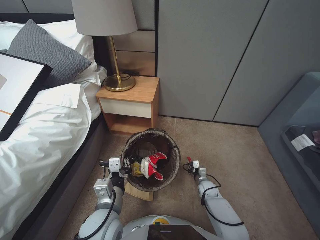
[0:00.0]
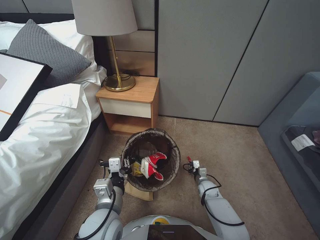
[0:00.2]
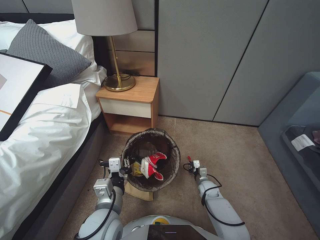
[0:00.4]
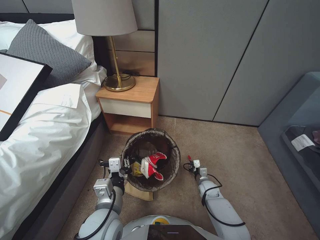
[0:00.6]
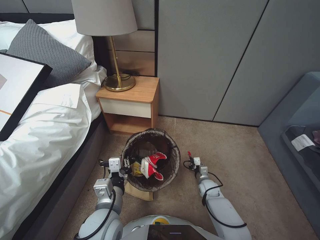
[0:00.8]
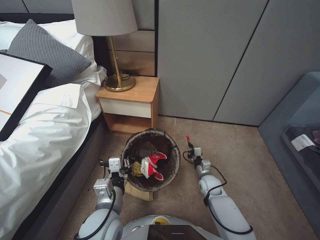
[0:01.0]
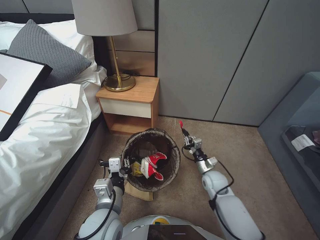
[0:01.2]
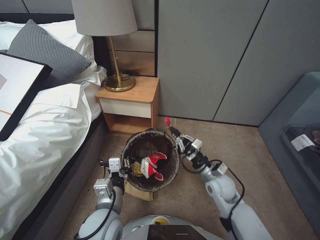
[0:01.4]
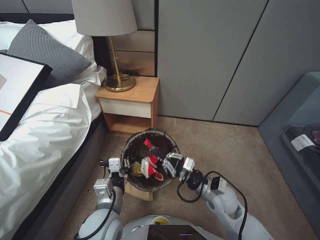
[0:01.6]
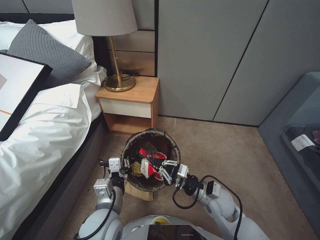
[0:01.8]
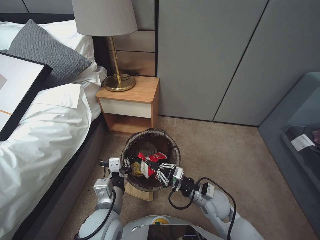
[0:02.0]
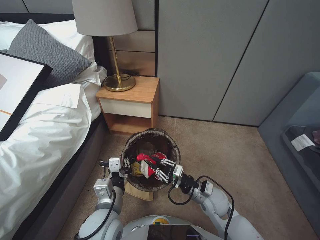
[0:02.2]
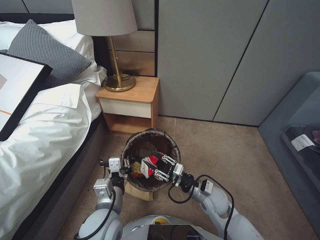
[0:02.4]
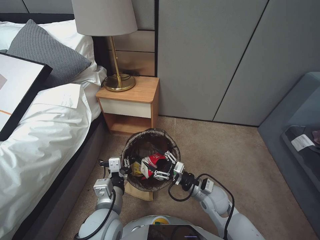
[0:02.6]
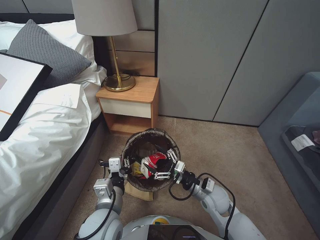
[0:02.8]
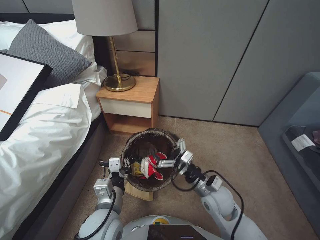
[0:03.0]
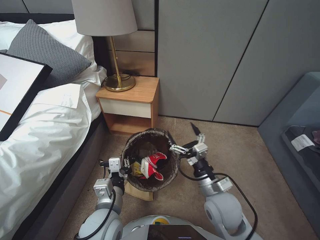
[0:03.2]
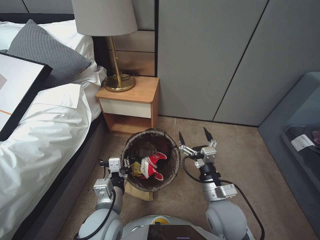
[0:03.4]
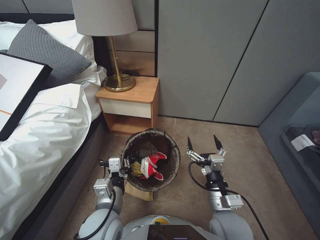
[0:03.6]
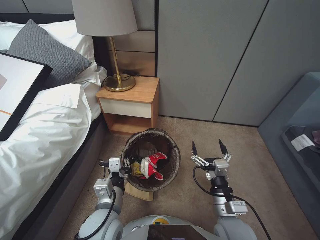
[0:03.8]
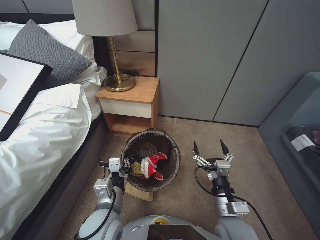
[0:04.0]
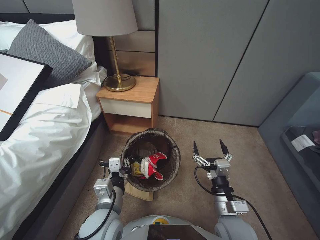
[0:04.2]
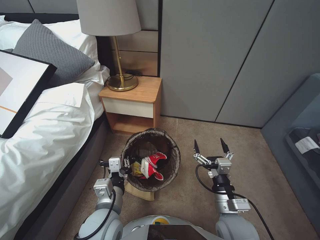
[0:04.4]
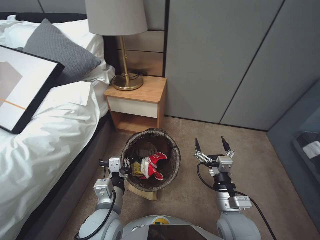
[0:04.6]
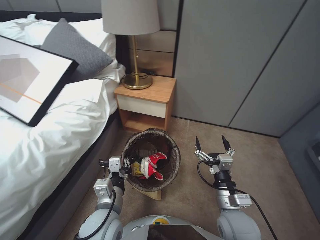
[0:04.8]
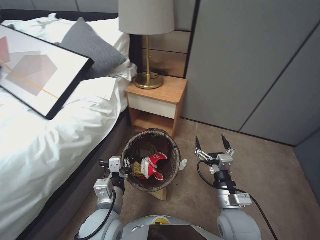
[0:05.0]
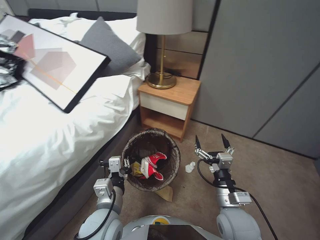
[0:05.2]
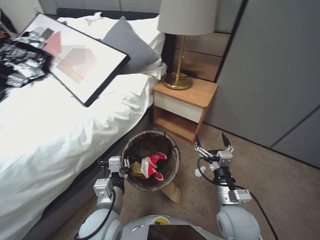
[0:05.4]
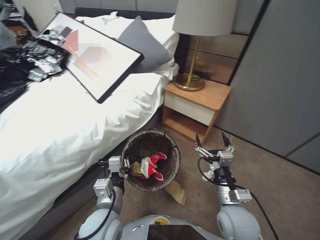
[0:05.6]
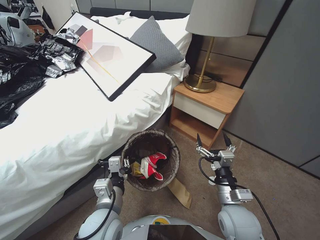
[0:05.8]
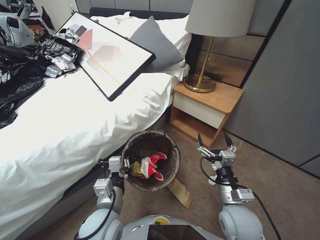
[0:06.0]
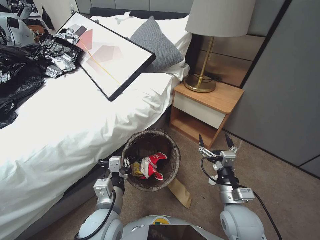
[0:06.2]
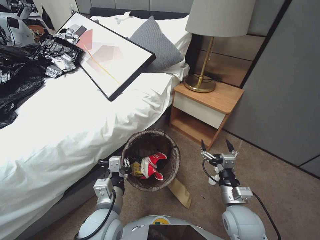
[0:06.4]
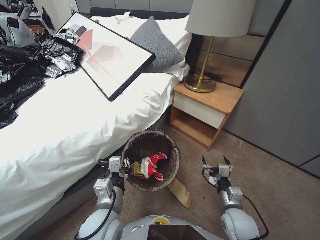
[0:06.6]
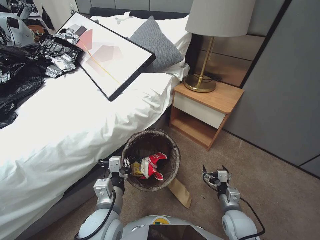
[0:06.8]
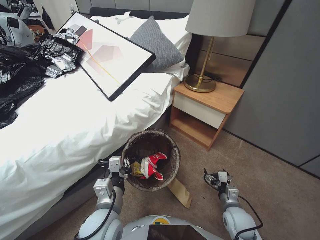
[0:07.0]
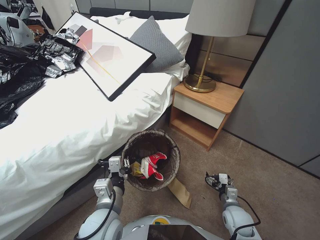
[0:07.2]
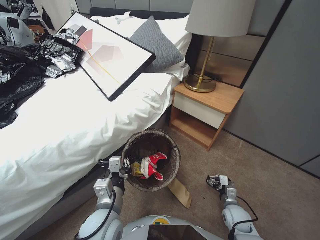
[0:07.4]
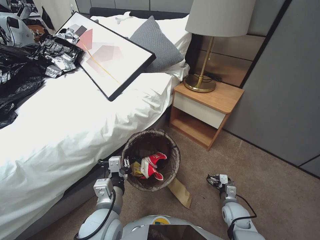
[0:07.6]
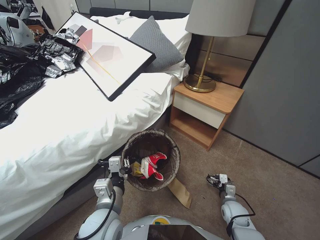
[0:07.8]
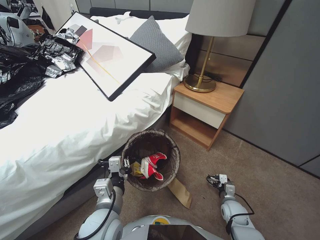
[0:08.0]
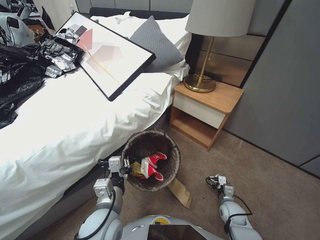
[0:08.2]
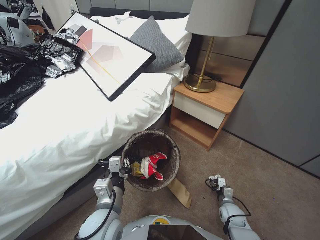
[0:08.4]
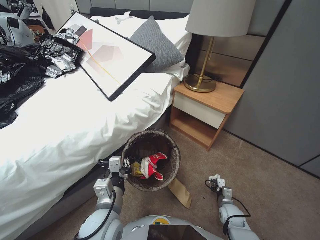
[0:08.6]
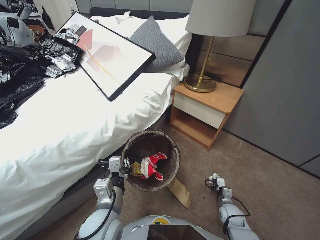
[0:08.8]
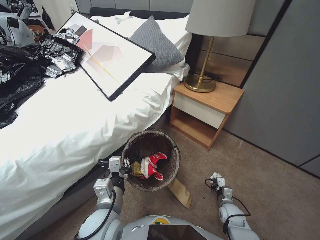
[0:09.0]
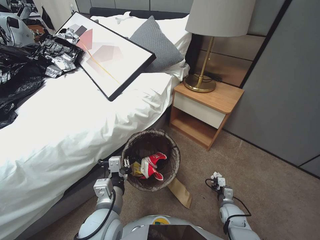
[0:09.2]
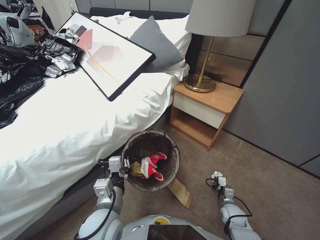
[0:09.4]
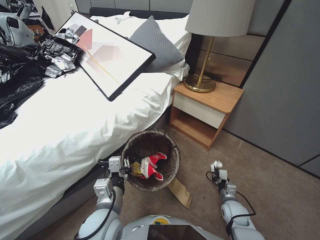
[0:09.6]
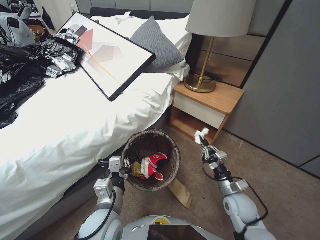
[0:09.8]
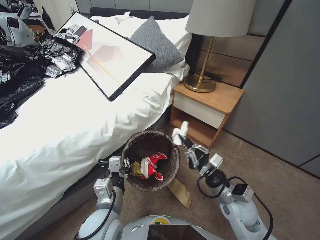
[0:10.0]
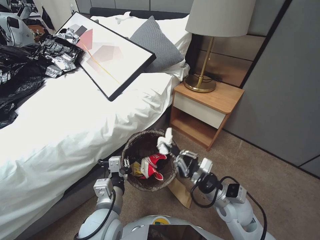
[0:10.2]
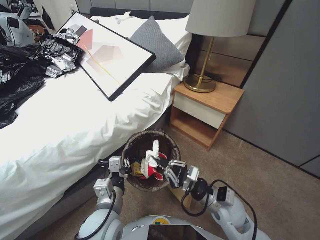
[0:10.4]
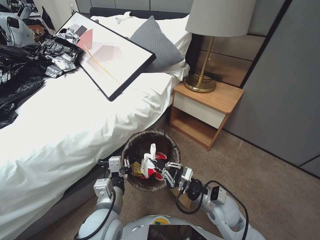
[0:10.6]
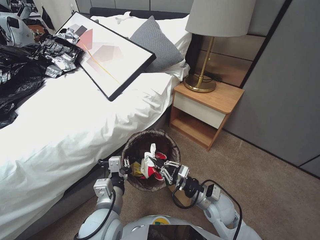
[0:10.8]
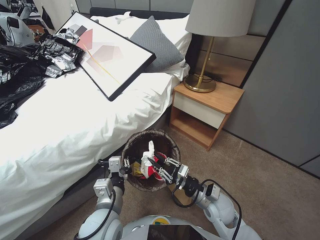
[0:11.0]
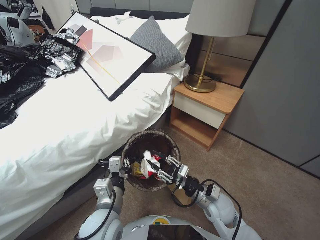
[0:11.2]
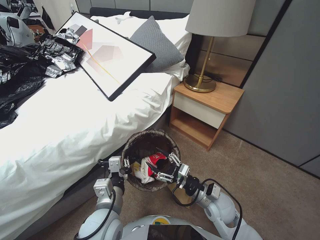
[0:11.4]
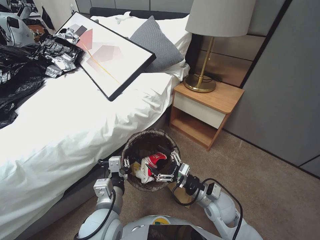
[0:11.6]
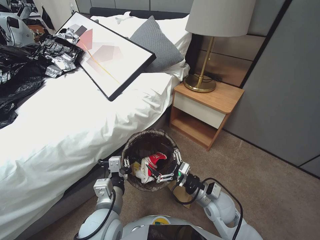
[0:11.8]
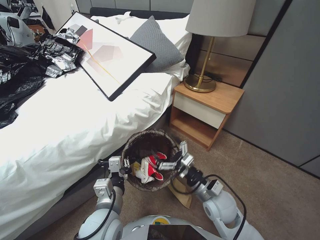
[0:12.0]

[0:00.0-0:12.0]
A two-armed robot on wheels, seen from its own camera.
Task of the whole recording: Pick up the trash bin, then pick up the garbage from the floor and place it into the trash bin.
0:00.0 to 0:01.6: The right gripper moves upward, about 25 cm.
0:01.6 to 0:03.0: The right gripper goes some 5 cm downward, and opens.
0:03.0 to 0:04.4: The right gripper shifts about 10 cm backward and upward.
0:06.0 to 0:07.6: The right gripper goes about 20 cm downward and to the right.
0:07.6 to 0:09.0: The right gripper is displaced downward by roughly 5 cm, and closes.
0:09.0 to 0:10.4: The right gripper shifts roughly 25 cm upward and to the left.
0:10.4 to 0:12.0: The right gripper opens its fingers.

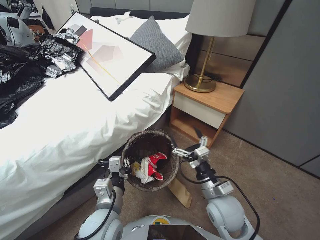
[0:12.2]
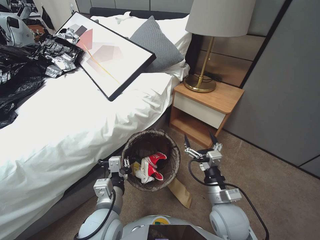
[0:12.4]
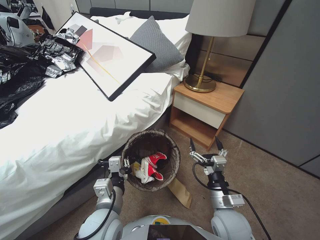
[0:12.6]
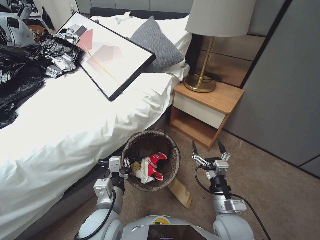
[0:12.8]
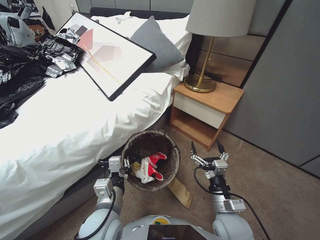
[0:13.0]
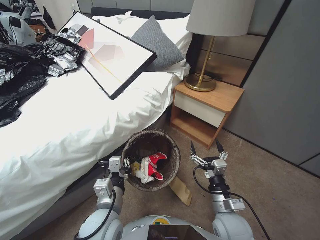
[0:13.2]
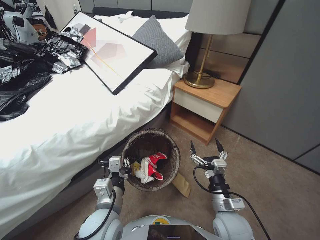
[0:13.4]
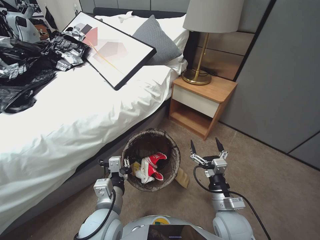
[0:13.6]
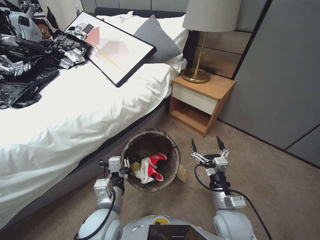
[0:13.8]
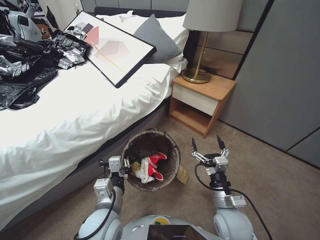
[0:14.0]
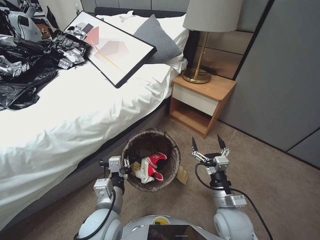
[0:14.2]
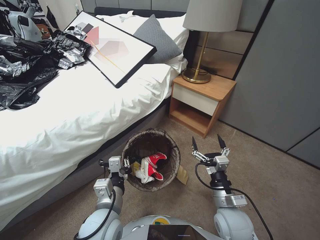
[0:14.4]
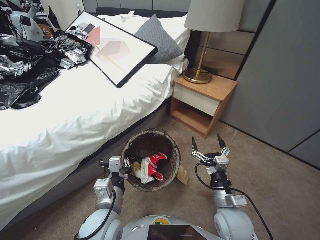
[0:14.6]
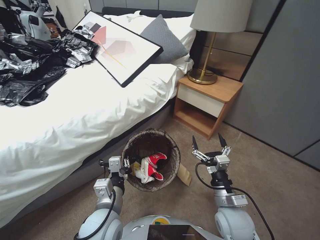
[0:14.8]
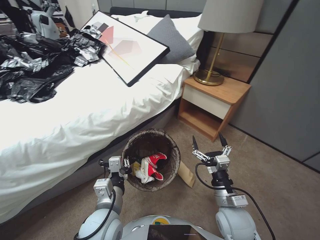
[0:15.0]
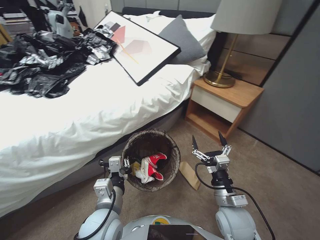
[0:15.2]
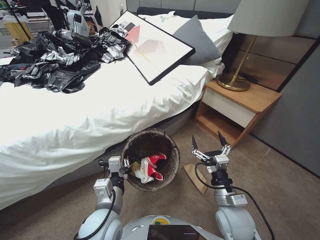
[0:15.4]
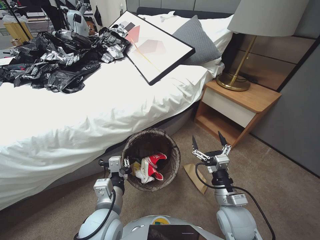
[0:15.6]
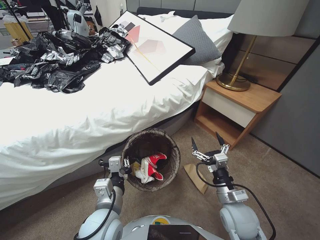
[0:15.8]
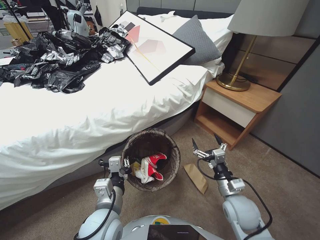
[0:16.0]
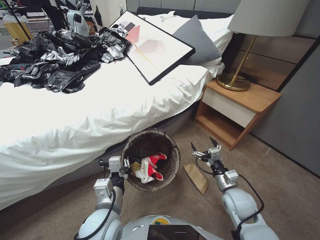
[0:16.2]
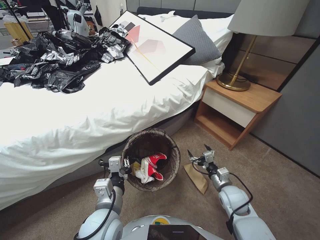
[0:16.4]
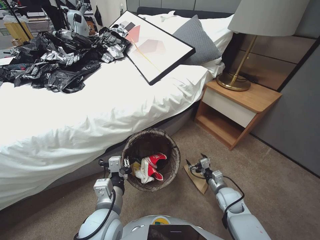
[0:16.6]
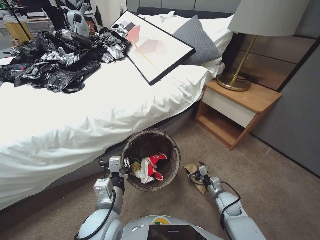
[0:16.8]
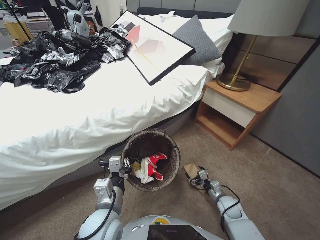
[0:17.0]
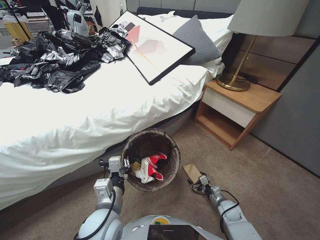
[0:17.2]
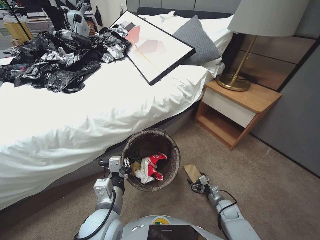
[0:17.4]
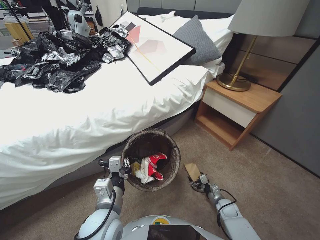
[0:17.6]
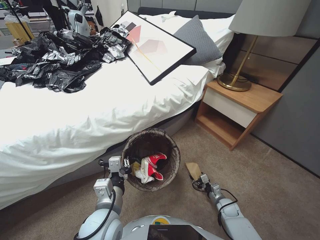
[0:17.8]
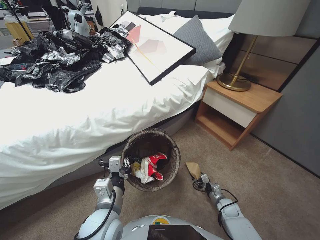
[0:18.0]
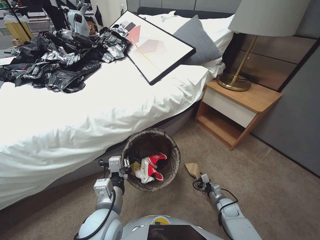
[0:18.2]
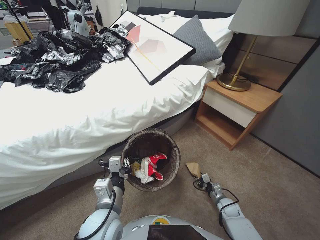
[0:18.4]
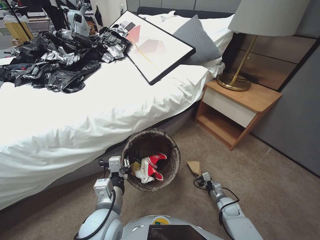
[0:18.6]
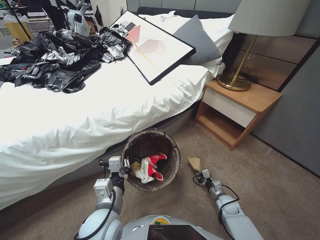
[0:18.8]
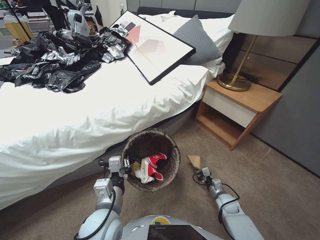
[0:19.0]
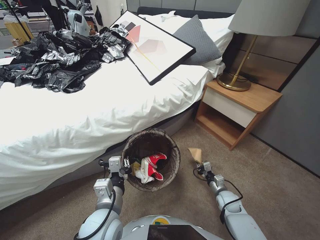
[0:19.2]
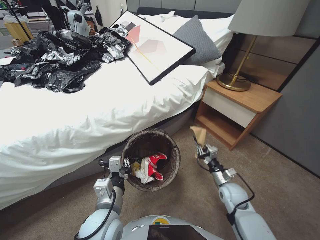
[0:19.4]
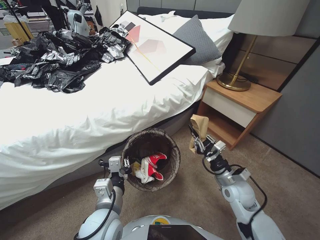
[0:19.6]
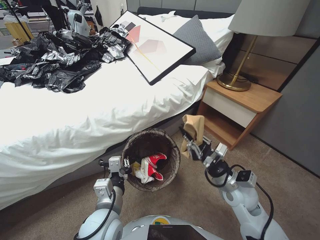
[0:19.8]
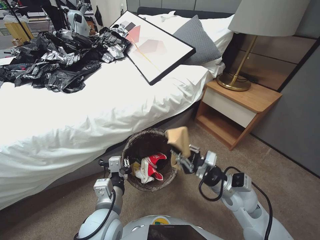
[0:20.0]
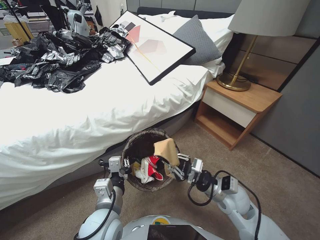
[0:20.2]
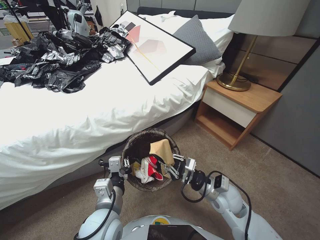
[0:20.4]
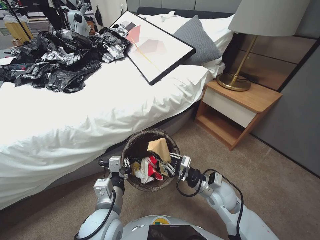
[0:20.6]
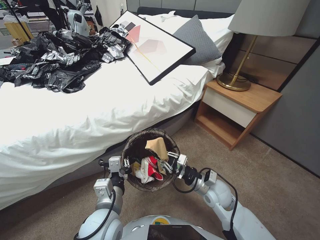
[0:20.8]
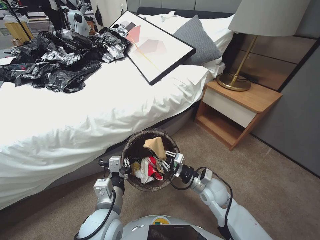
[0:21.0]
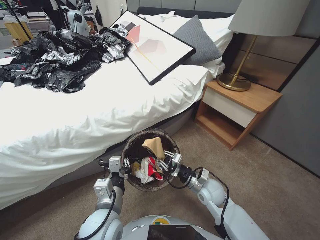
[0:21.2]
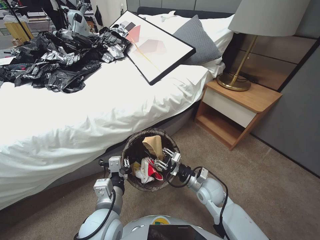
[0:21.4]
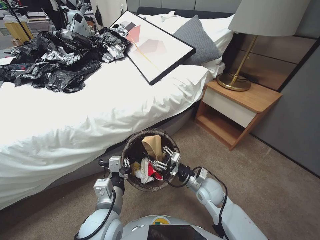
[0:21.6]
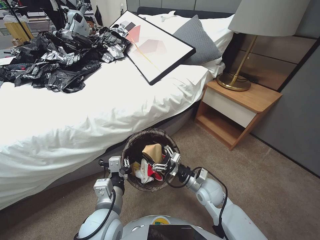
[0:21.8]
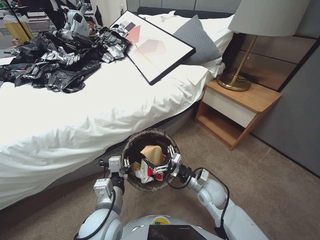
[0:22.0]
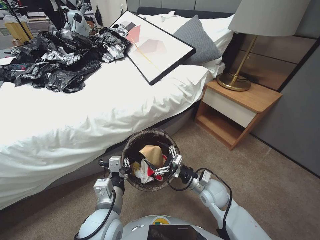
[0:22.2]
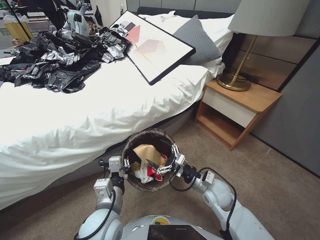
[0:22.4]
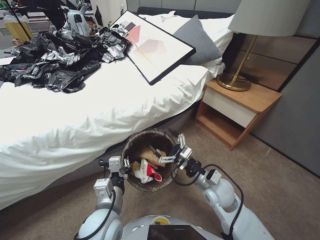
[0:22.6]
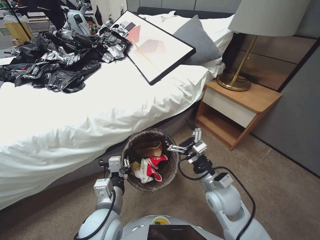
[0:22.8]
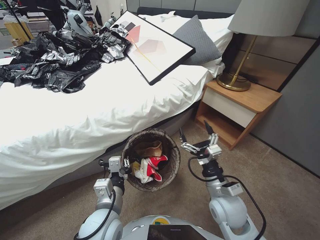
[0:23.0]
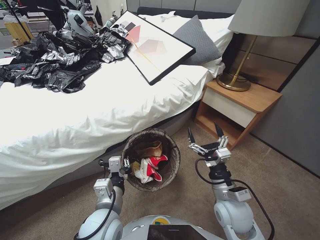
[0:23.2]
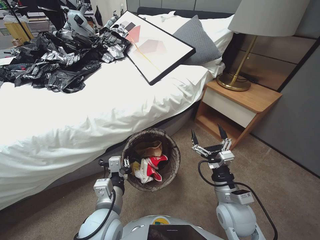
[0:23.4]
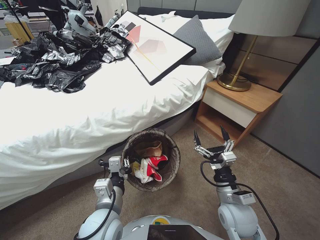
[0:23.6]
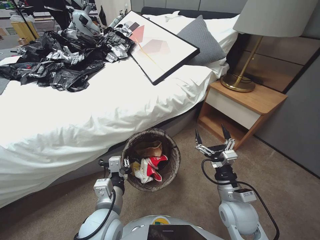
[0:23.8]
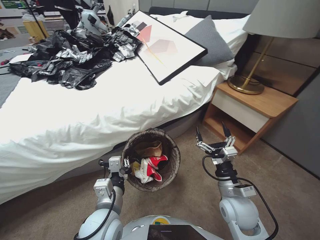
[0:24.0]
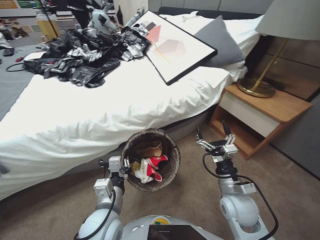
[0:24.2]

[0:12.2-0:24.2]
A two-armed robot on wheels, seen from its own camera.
Task of the whole recording: Pick up the trash bin, then pick up the garbage from the floor and place it into the trash bin.
0:12.2 to 0:13.8: The right gripper shifts by about 5 cm.
0:15.2 to 0:16.6: The right gripper is displaced downward, forward and to the right by roughly 15 cm.
0:16.6 to 0:18.2: The right gripper moves downward, about 15 cm, and closes its fingers.
0:18.2 to 0:19.8: The right gripper travels upward by roughly 30 cm, and closes its fingers.
0:19.8 to 0:21.2: The right gripper heads downward and to the left, covering approximately 10 cm.
0:21.2 to 0:22.6: The right gripper opens its fingers.
0:22.6 to 0:24.2: The right gripper heads backward, covering some 5 cm.
